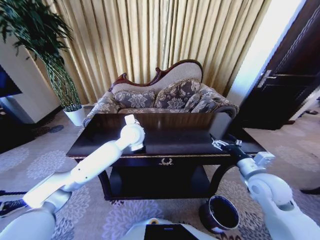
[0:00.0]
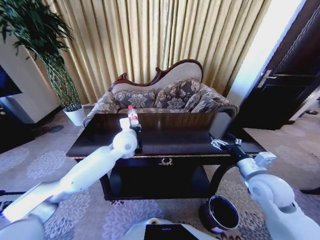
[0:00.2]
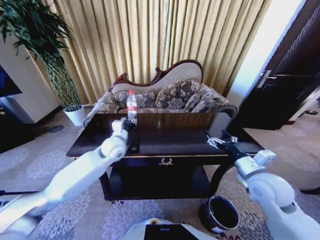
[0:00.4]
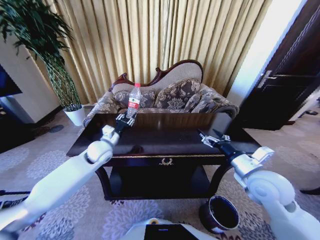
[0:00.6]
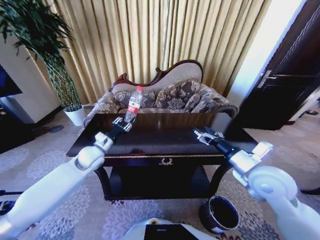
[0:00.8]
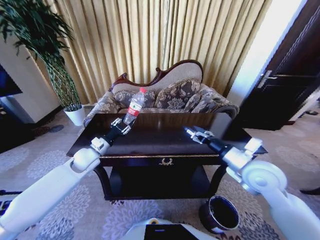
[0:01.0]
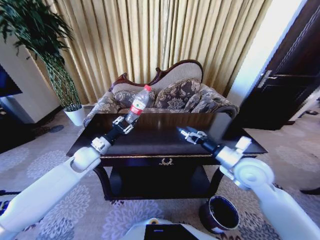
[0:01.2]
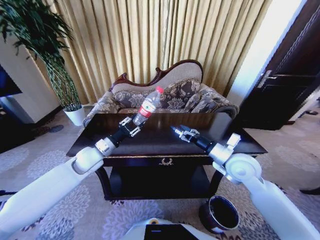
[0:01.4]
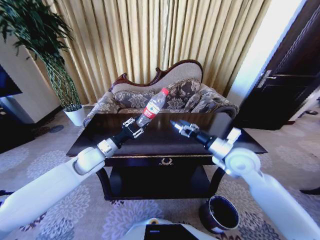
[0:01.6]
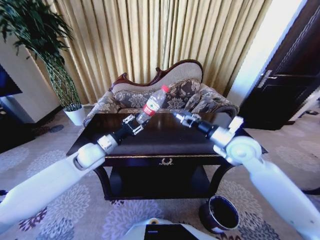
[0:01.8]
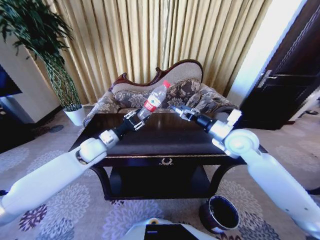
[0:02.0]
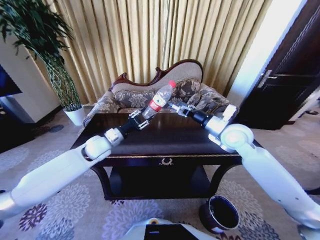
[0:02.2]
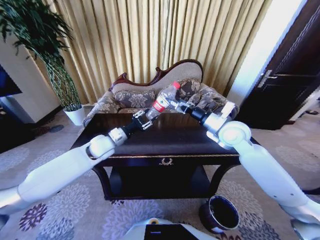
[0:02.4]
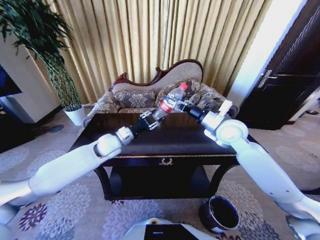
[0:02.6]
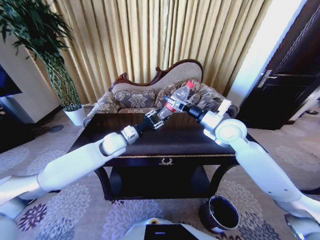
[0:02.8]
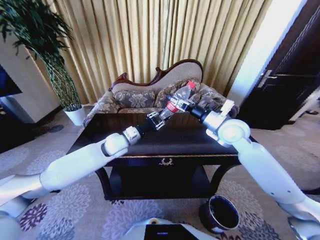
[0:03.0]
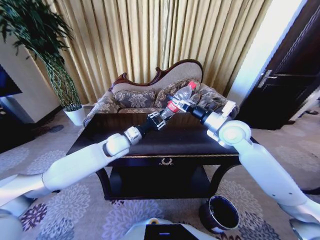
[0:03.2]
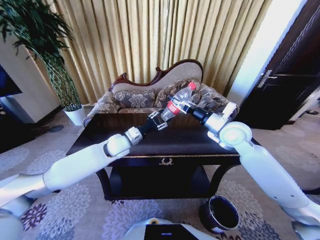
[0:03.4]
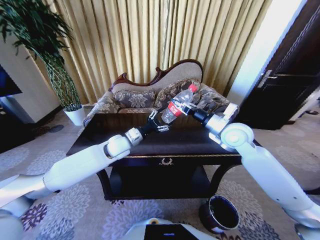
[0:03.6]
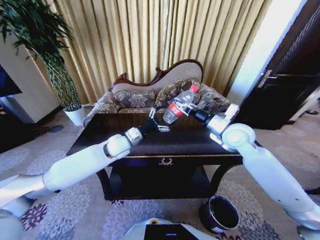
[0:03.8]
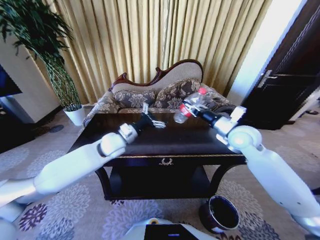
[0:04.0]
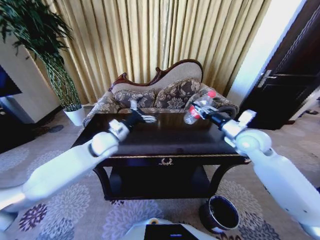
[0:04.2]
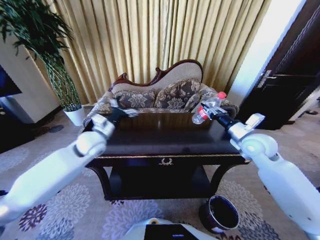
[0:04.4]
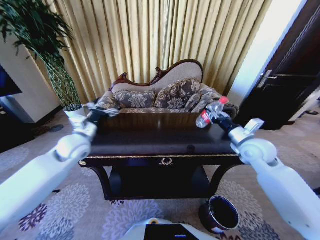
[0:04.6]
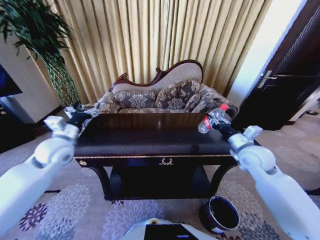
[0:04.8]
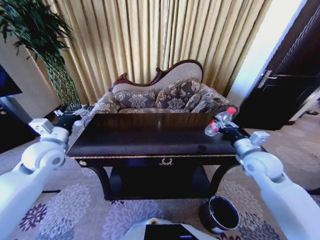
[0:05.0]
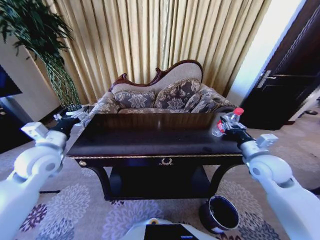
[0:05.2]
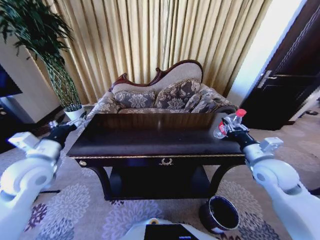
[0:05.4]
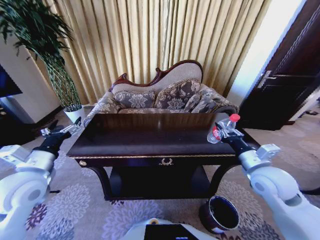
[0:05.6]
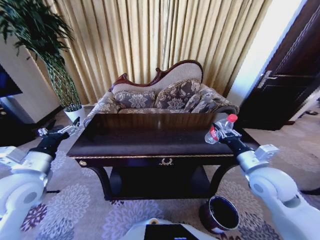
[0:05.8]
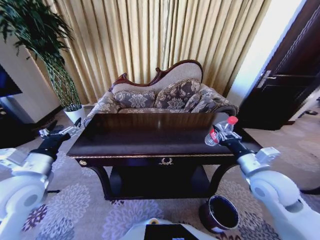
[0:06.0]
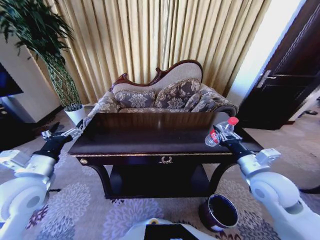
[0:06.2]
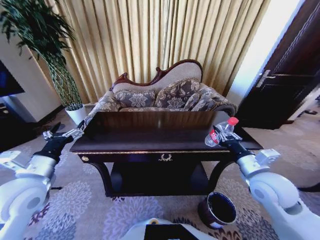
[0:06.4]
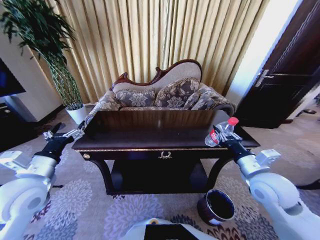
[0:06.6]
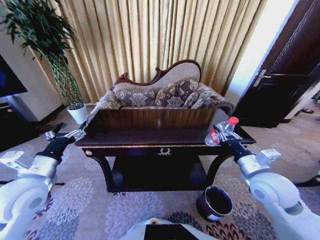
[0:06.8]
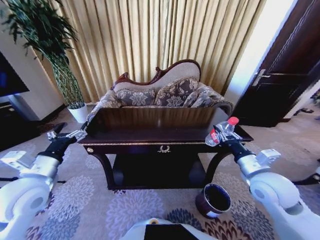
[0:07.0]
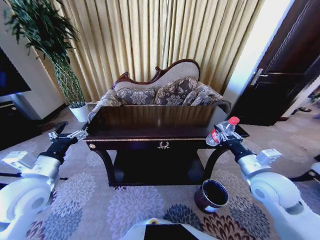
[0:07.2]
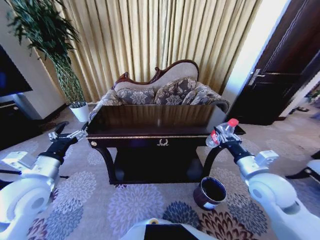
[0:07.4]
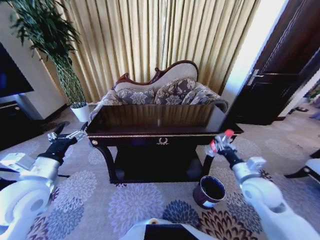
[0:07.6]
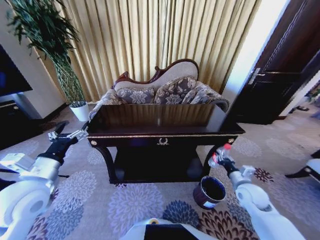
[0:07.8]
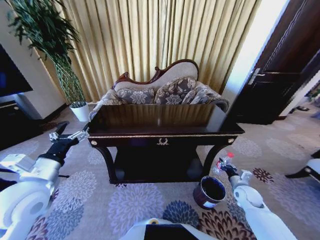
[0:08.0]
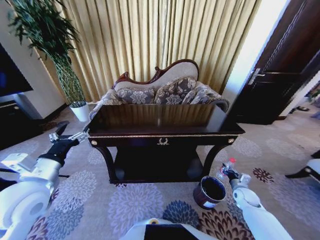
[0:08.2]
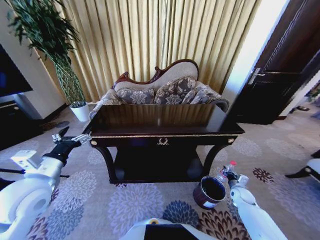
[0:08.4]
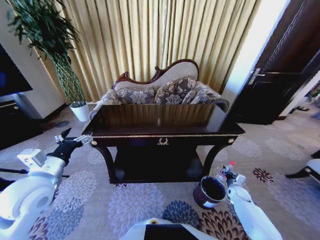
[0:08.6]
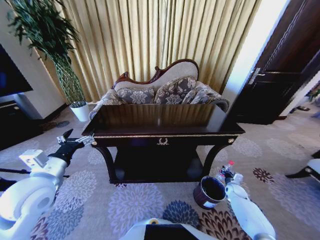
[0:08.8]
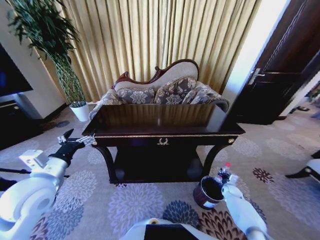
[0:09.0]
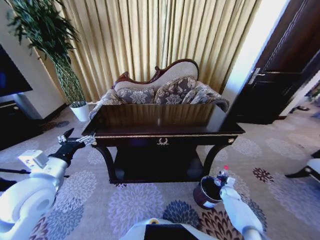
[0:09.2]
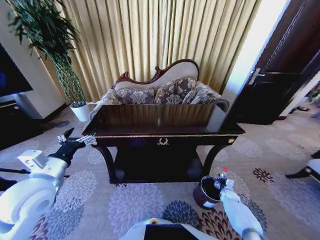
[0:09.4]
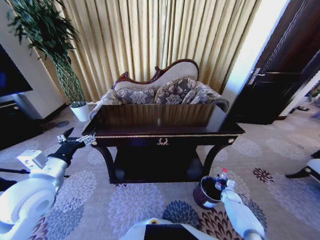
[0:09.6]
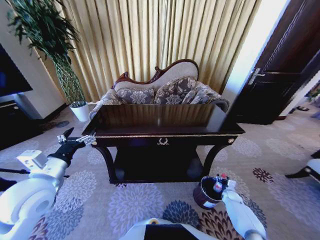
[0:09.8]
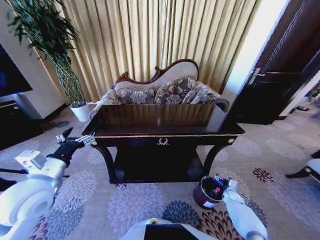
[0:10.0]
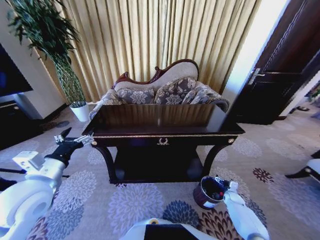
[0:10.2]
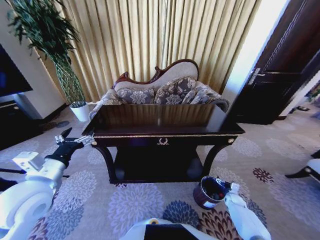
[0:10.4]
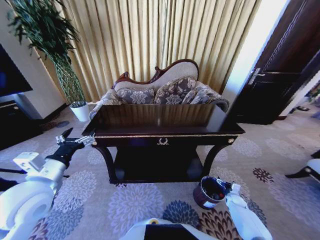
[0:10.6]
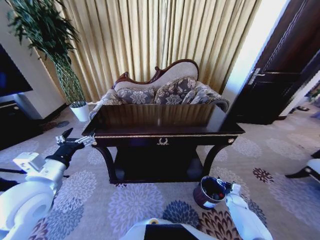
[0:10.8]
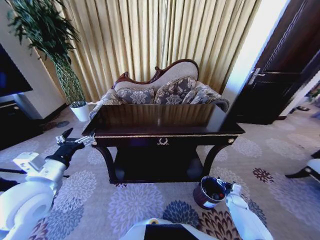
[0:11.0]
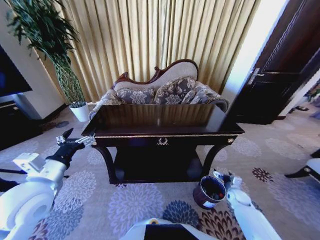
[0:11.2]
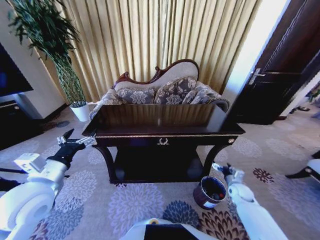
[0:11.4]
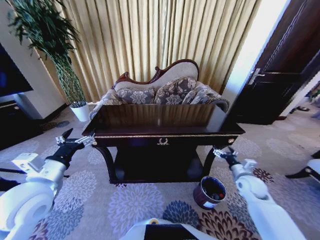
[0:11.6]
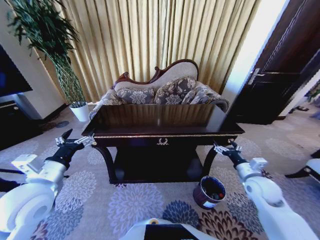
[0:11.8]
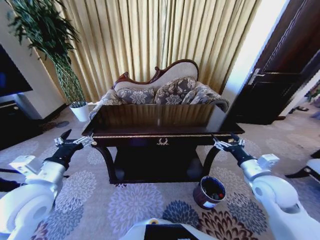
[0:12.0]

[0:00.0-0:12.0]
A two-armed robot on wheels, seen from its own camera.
Task of the whole recording: Move to the front of the table and place the trash on the table into the trash bin.
0:00.0 to 0:01.6: The right gripper travels forward, to the left and upward by some 10 cm; the left gripper goes roughly 15 cm to the left and backward.
0:01.6 to 0:03.0: The left gripper shifts roughly 10 cm to the right and forward. The right gripper is displaced forward and upward by about 10 cm.
0:03.0 to 0:04.4: The right gripper heads to the right, covering roughly 10 cm, and closes up. Meanwhile the left gripper heads to the left, covering about 10 cm, and opens.
0:04.4 to 0:06.0: The left gripper travels backward and to the left by roughly 20 cm, while the right gripper moves backward, about 15 cm.
0:06.0 to 0:07.6: The right gripper shifts roughly 10 cm downward.
0:07.6 to 0:09.0: The right gripper heads downward, covering some 30 cm.
0:09.0 to 0:10.4: The right gripper ends up roughly 5 cm from where it was, and opens up.
0:10.4 to 0:12.0: The right gripper shifts roughly 35 cm upward.

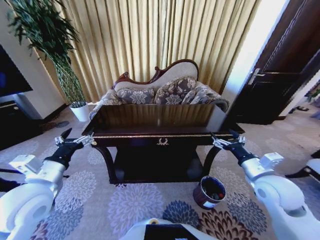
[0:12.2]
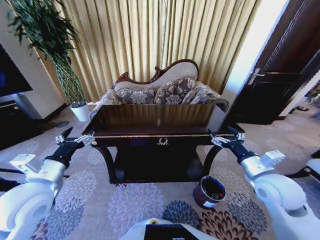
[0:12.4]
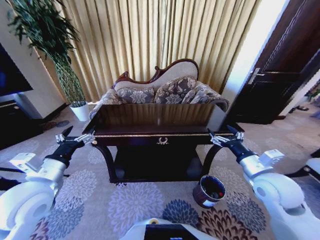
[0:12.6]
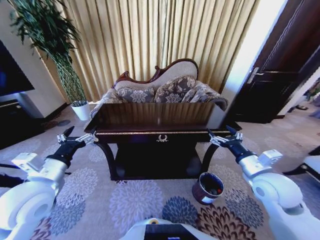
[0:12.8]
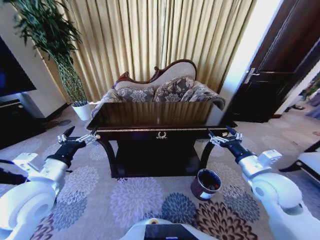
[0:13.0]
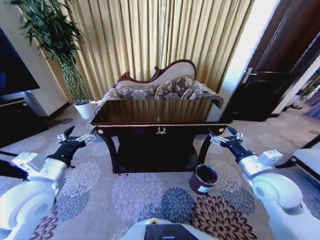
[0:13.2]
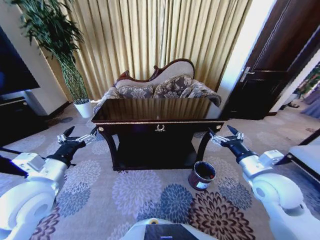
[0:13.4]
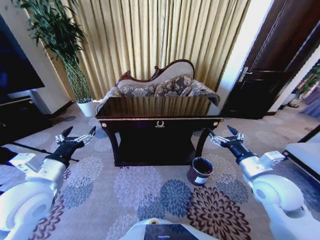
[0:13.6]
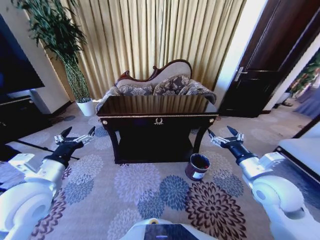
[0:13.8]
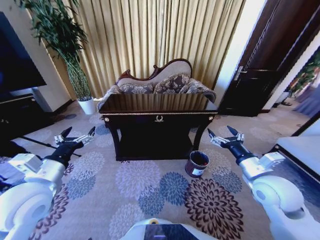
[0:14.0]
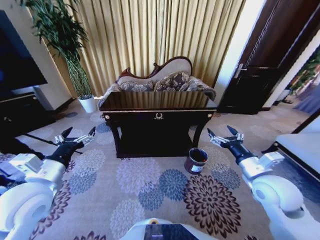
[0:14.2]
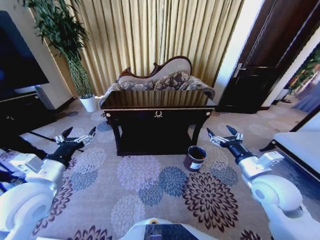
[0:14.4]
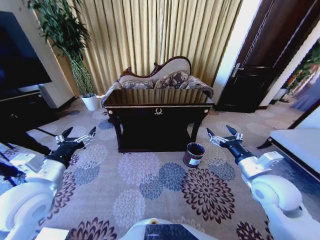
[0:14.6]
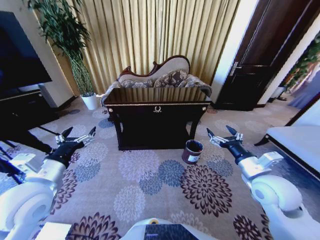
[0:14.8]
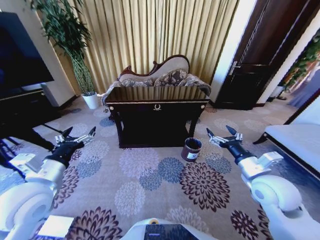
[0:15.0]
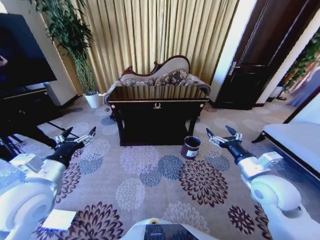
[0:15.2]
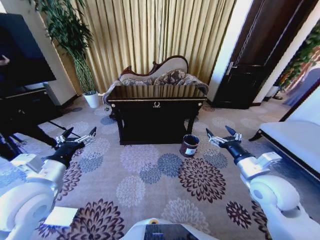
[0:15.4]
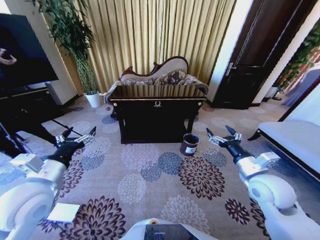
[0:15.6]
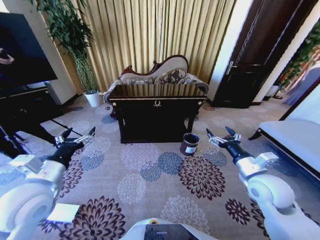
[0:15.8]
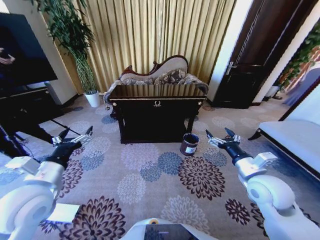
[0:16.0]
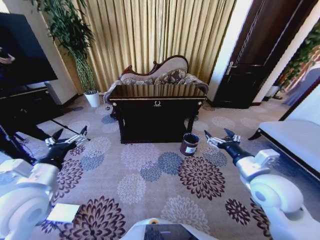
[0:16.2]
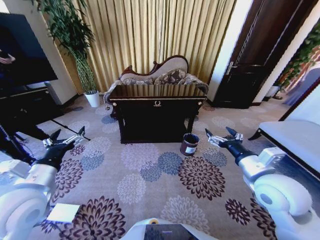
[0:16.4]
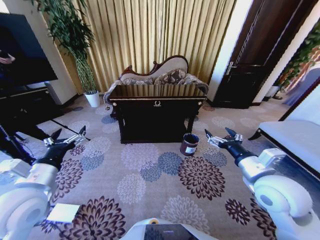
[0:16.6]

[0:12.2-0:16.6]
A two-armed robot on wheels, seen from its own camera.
Task of the whole recording: Move to the front of the table and place the trash on the table into the trash bin.
0:15.2 to 0:16.6: The right gripper ends up approximately 5 cm from where it was.

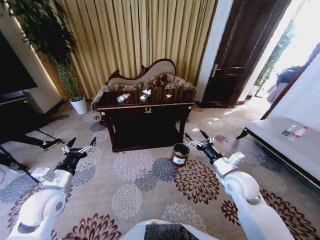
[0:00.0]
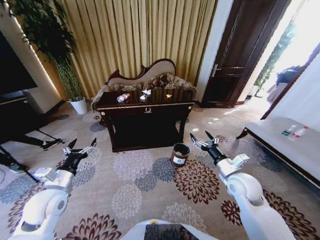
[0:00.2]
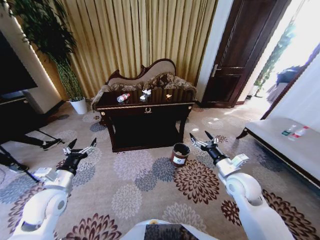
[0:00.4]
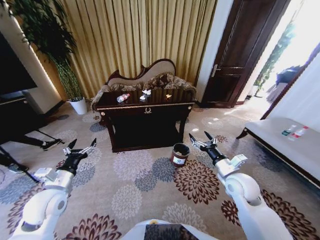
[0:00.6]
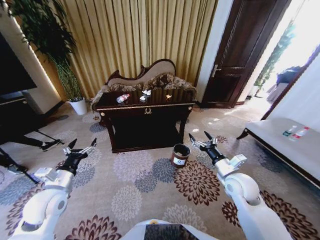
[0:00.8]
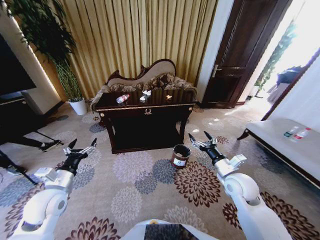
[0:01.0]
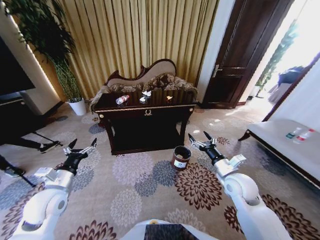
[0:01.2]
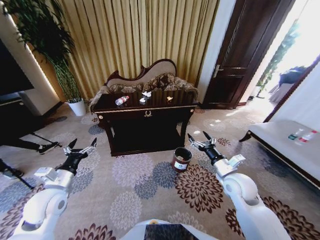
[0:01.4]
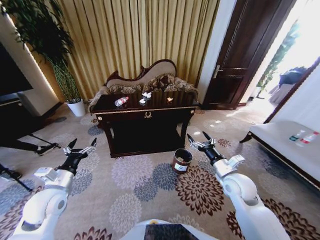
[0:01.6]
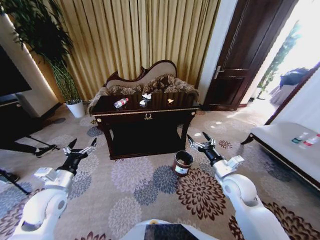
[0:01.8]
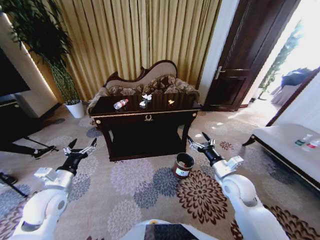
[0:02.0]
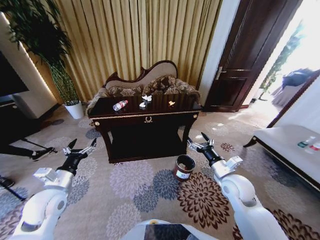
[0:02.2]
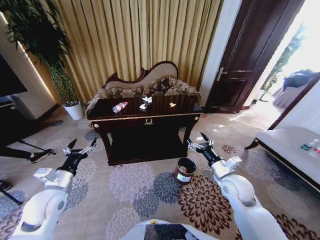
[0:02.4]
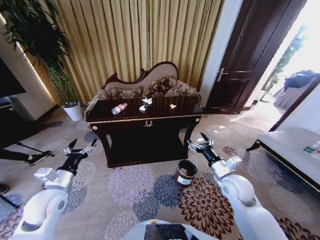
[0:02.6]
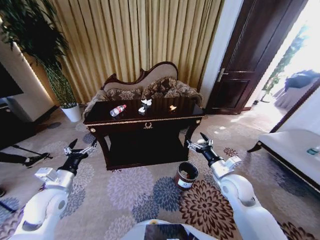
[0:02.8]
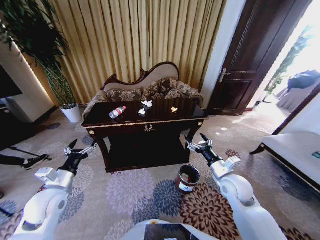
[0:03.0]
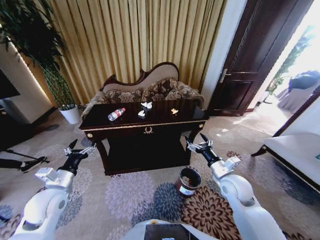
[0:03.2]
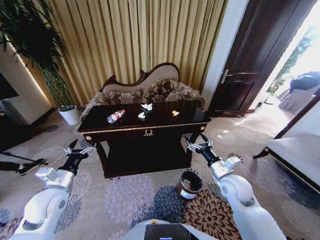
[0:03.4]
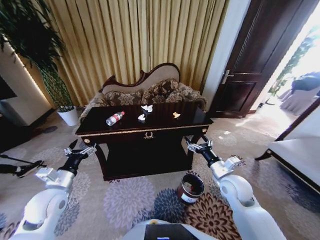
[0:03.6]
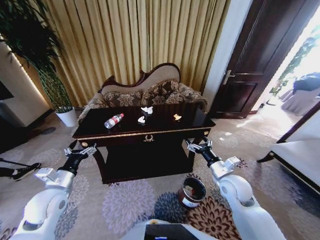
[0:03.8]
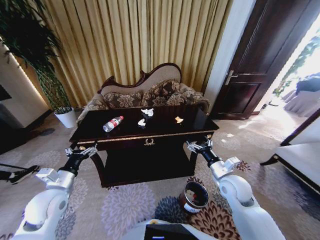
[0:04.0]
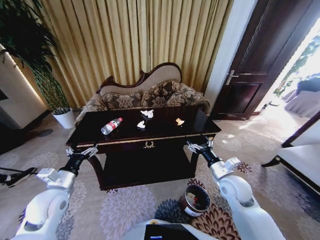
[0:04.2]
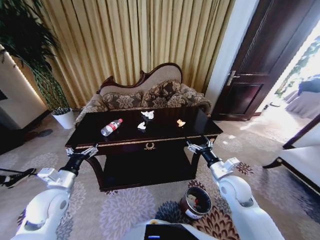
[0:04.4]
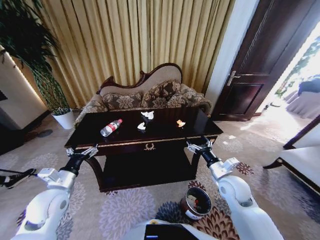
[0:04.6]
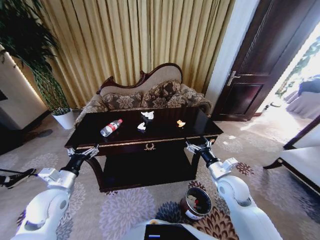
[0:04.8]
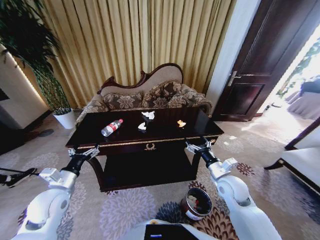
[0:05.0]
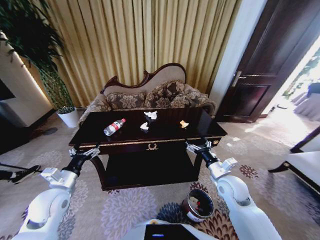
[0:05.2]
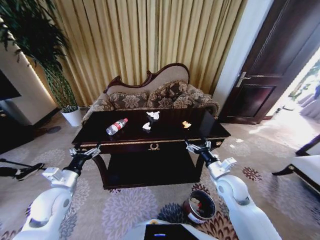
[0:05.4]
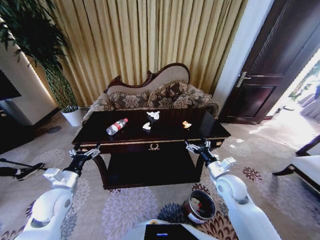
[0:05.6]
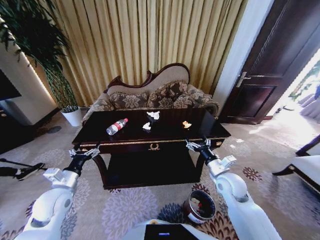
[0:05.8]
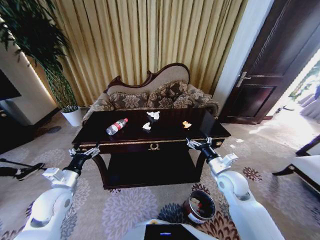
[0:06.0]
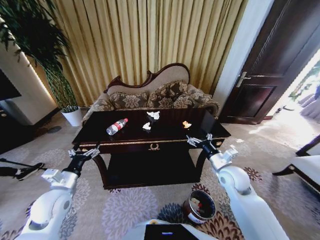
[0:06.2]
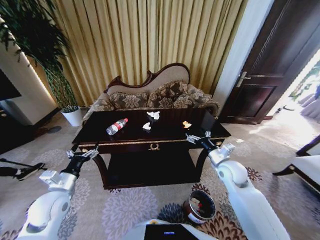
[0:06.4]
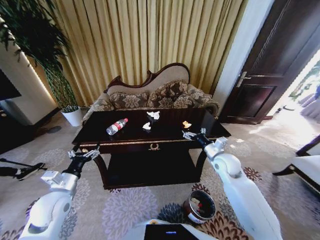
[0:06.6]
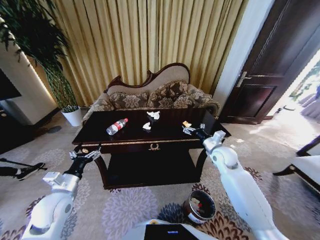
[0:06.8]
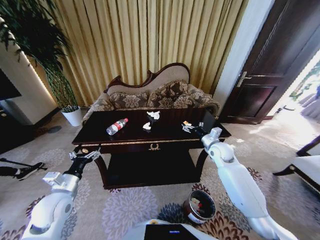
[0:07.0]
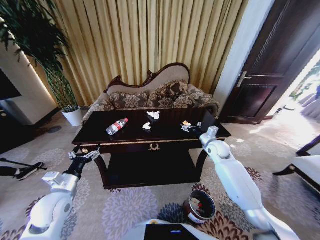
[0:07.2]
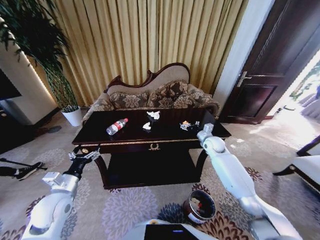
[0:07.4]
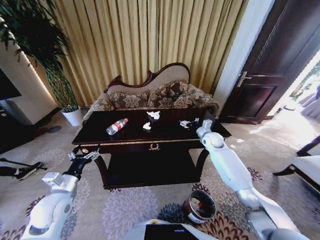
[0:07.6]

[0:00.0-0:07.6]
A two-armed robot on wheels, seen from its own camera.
Task of the whole recording: Move to the front of the table and place the trash on the table into the trash bin.
0:06.0 to 0:07.6: The right gripper shifts about 25 cm forward.
